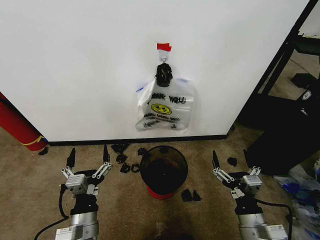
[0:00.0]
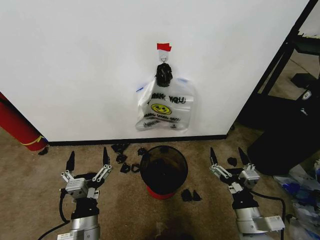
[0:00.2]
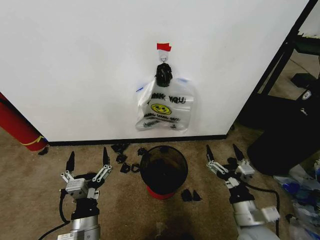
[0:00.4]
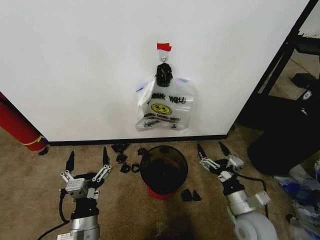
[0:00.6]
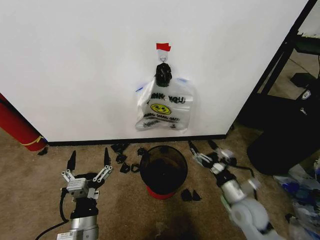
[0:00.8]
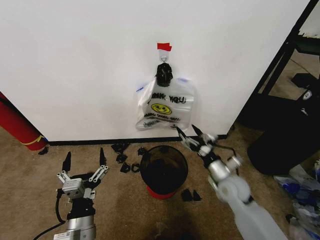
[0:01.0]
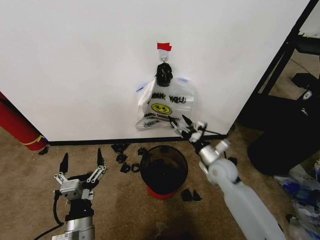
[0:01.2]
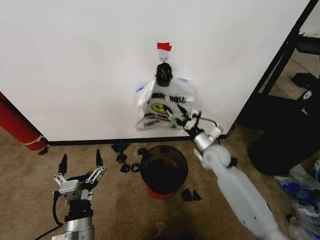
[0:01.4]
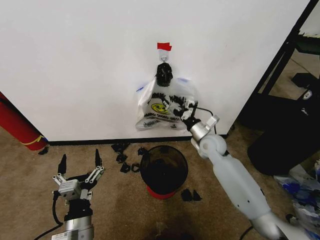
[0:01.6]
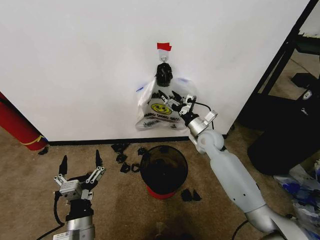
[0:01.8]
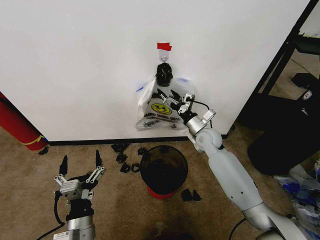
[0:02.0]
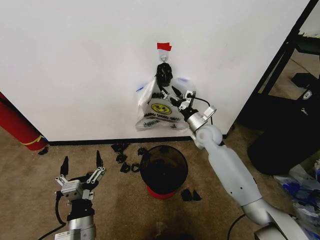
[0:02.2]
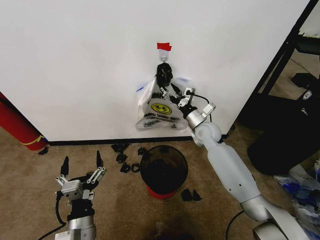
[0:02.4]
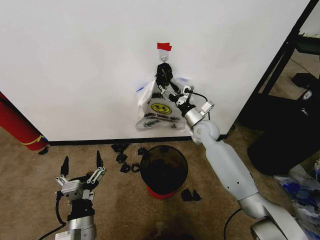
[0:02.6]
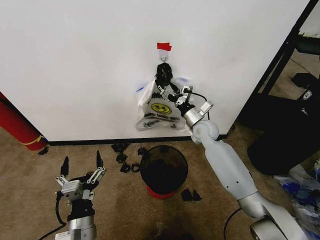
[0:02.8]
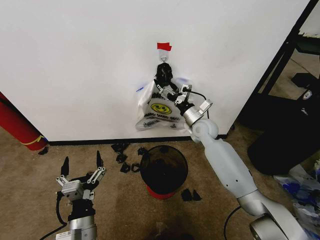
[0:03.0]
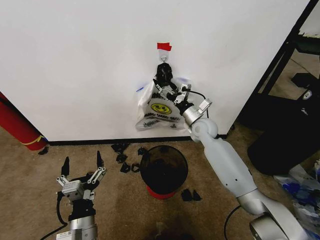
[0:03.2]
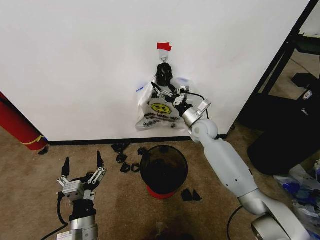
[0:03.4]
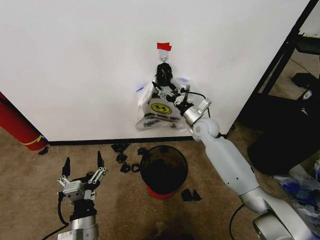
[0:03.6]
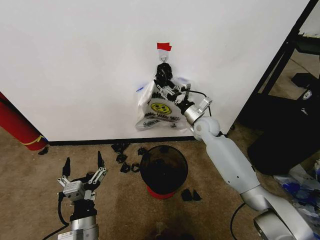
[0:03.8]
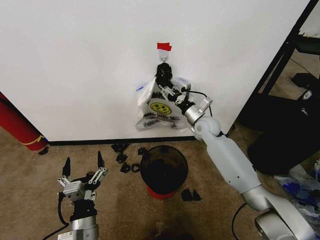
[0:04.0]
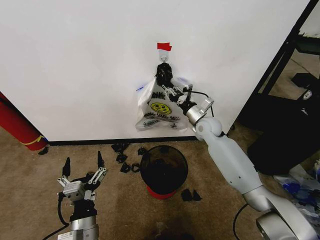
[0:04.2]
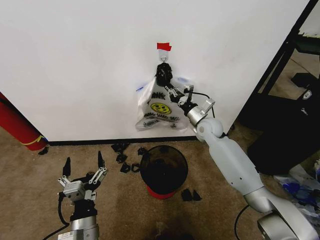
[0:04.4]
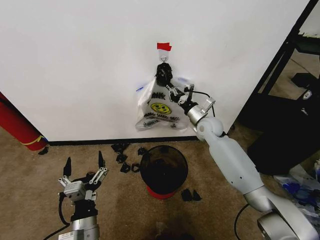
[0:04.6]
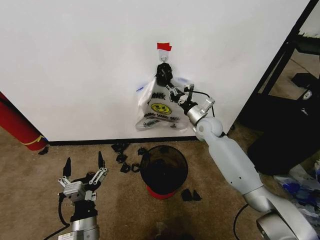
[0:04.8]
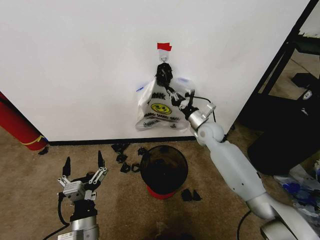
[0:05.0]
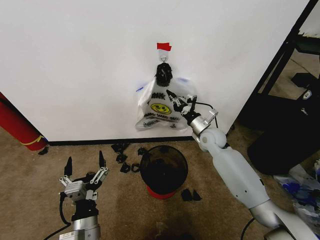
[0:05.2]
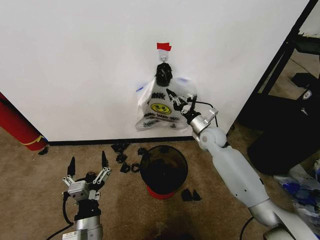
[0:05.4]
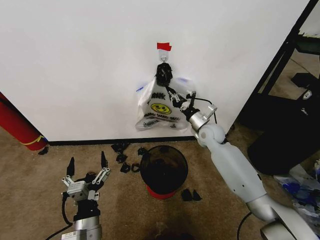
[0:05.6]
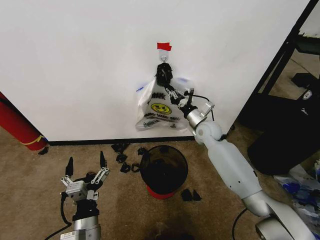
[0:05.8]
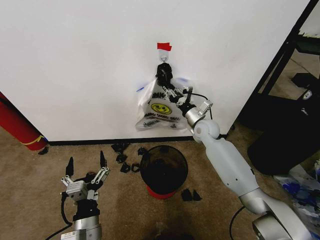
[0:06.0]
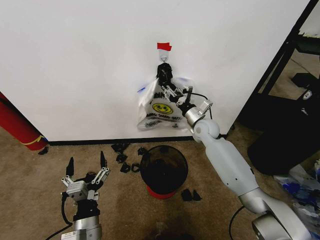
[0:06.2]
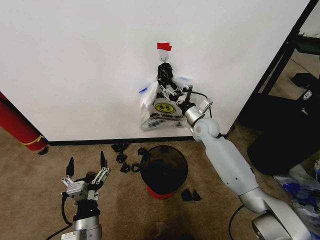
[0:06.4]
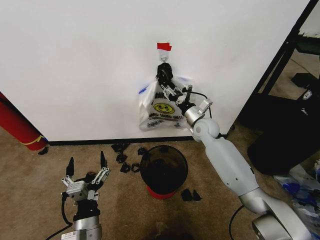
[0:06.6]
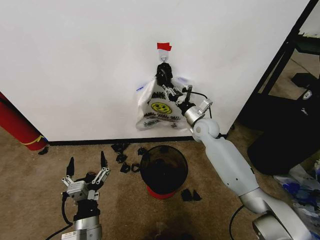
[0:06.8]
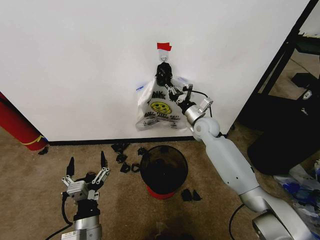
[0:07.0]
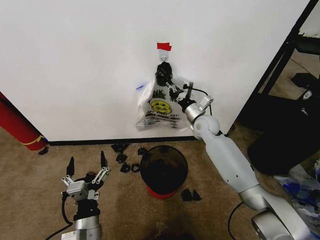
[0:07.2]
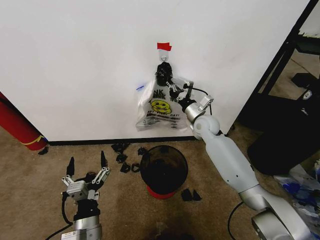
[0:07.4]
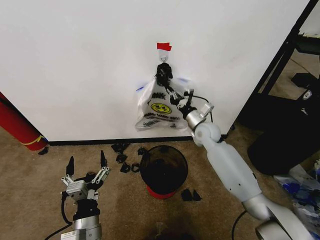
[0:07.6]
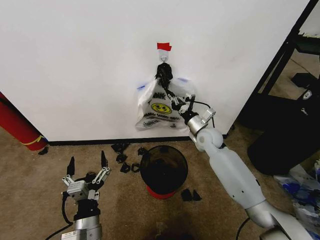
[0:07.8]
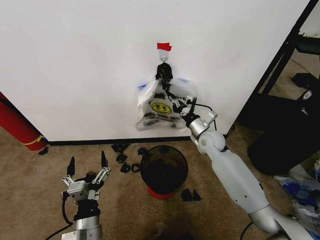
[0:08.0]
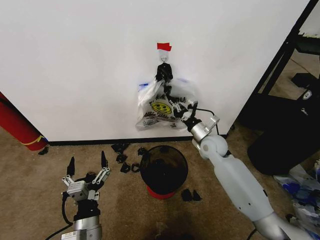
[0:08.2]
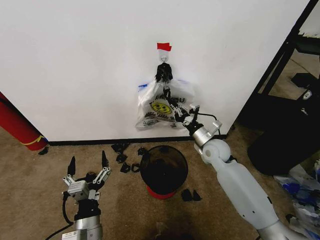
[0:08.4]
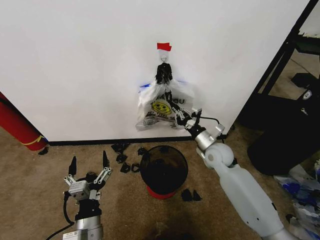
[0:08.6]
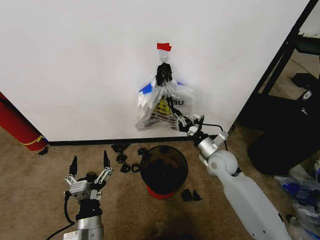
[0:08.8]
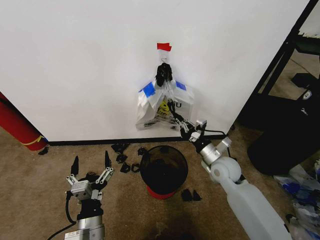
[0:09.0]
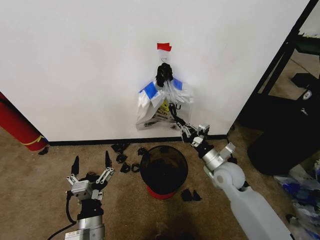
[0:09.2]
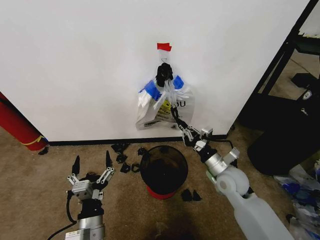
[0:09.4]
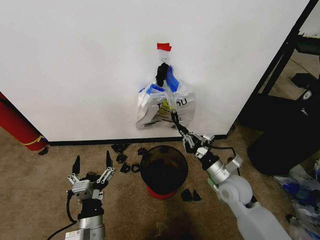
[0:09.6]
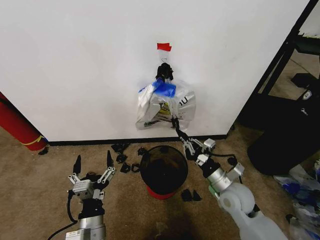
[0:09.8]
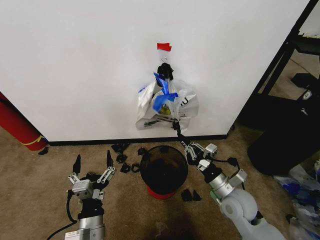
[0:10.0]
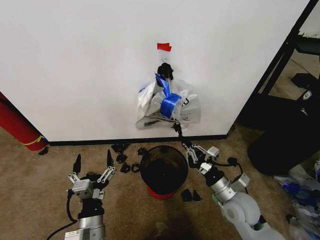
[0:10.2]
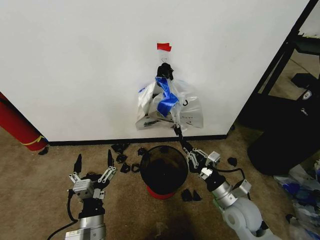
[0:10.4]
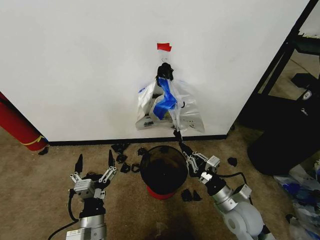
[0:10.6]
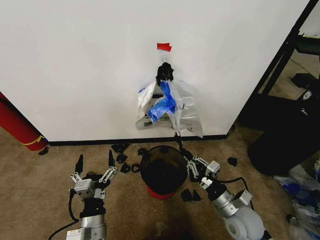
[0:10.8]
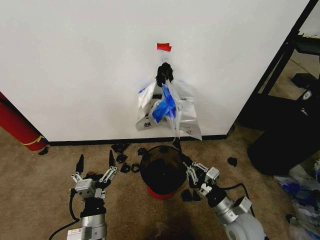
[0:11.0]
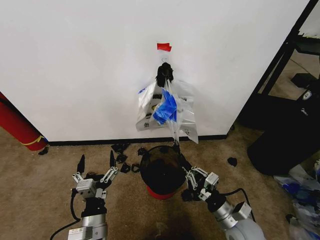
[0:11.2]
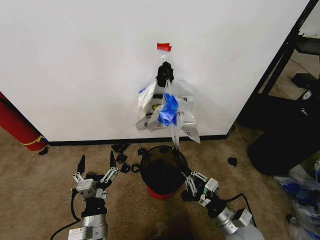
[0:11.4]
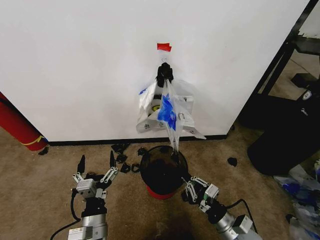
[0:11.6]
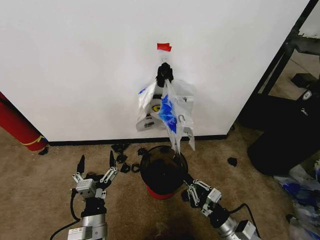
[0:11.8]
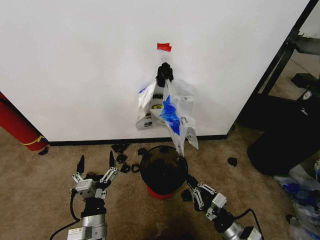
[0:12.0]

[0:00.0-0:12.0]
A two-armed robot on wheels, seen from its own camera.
Task of the whole recording: Pick up the garbage bag from the wall and place it over the trash bin.
0:01.6 to 0:03.0: The right gripper ends up some 5 cm from where it was.
0:03.0 to 0:04.4: The right gripper closes up.
0:04.4 to 0:06.0: The grippers make only small movements.
0:06.0 to 0:07.6: The right gripper opens, then closes again.
0:07.6 to 0:09.0: The right gripper goes approximately 15 cm backward and downward.
0:09.0 to 0:10.4: The right gripper moves backward, some 15 cm.
0:10.4 to 0:12.0: The right gripper is displaced backward and downward by about 10 cm.

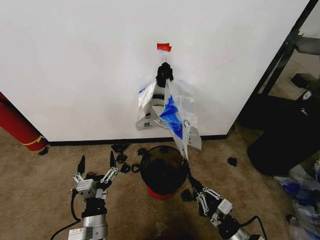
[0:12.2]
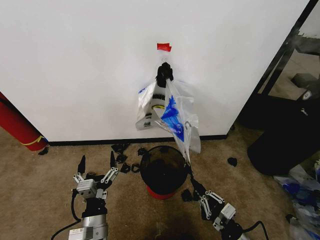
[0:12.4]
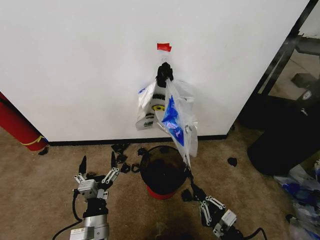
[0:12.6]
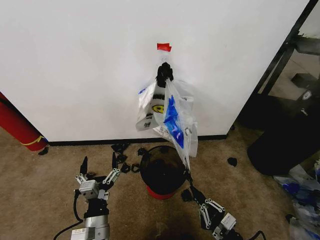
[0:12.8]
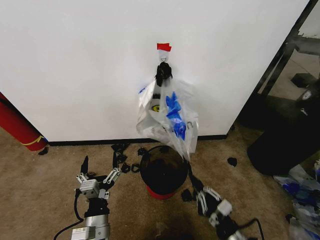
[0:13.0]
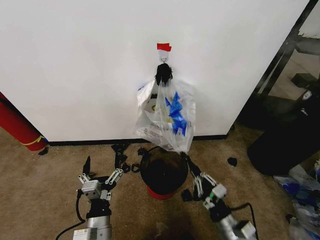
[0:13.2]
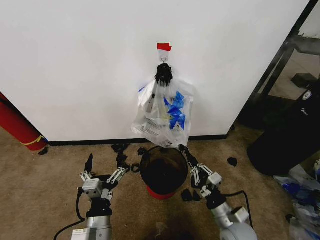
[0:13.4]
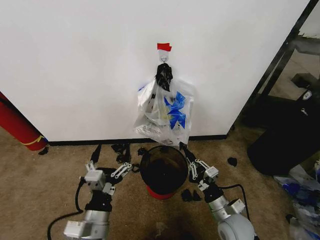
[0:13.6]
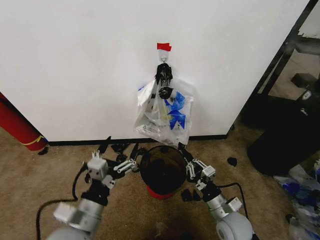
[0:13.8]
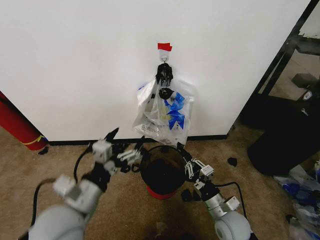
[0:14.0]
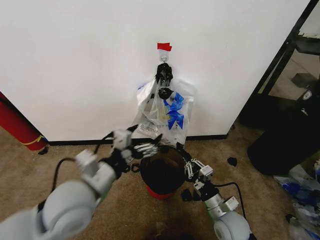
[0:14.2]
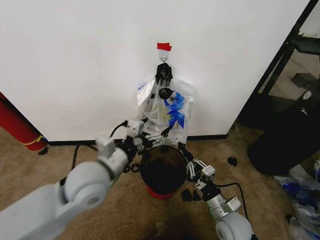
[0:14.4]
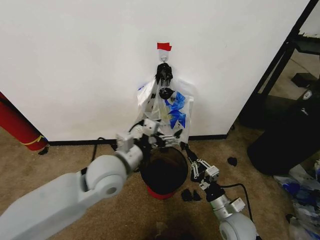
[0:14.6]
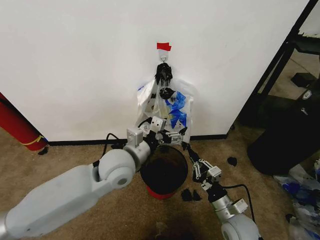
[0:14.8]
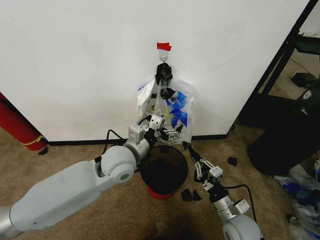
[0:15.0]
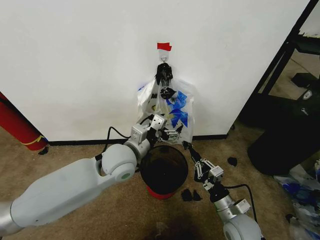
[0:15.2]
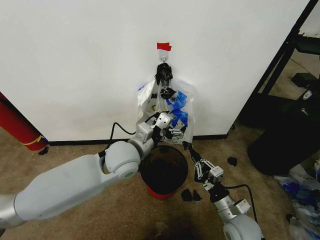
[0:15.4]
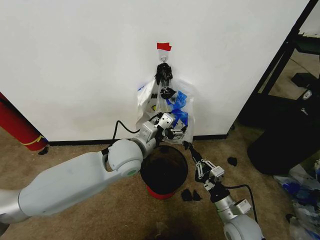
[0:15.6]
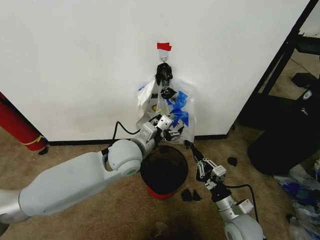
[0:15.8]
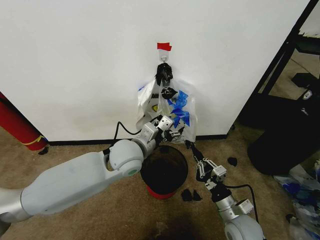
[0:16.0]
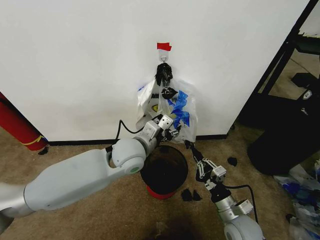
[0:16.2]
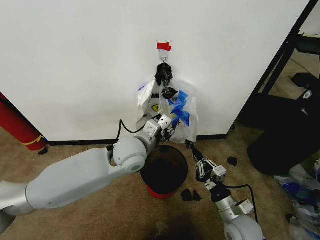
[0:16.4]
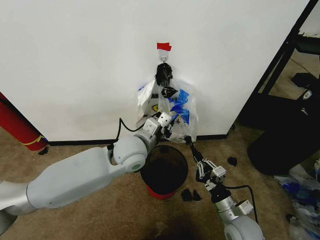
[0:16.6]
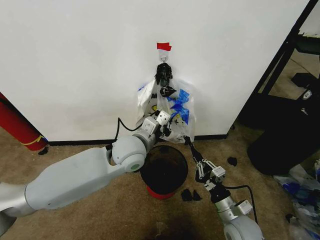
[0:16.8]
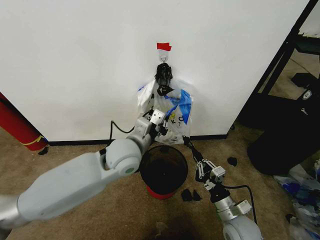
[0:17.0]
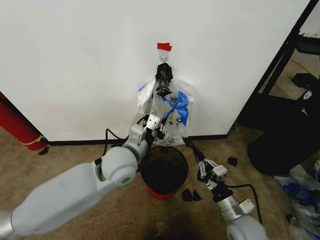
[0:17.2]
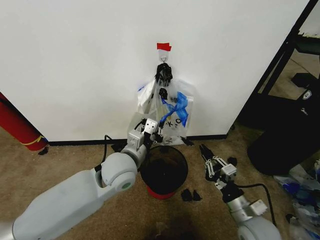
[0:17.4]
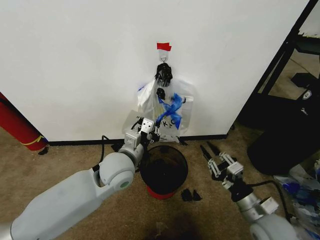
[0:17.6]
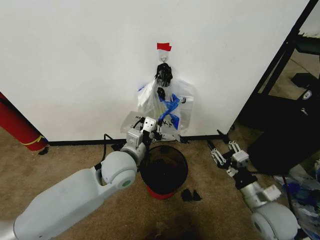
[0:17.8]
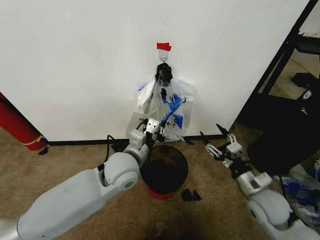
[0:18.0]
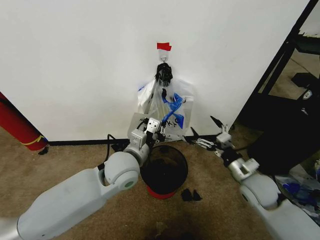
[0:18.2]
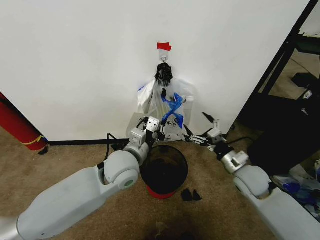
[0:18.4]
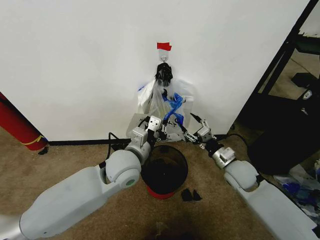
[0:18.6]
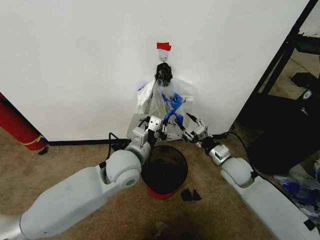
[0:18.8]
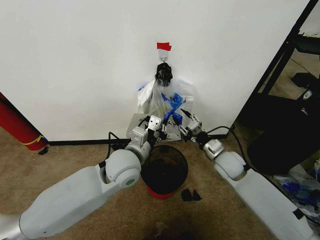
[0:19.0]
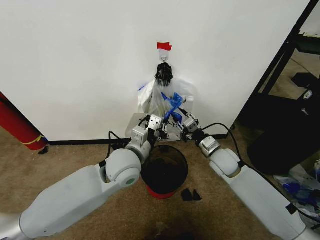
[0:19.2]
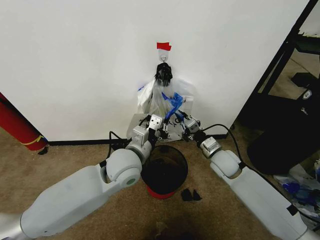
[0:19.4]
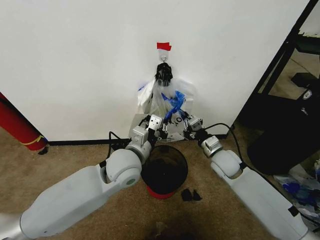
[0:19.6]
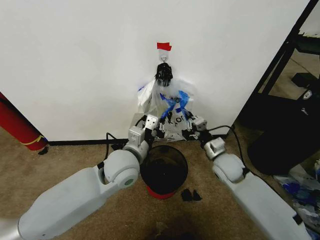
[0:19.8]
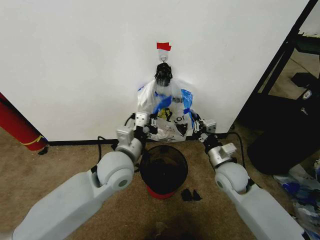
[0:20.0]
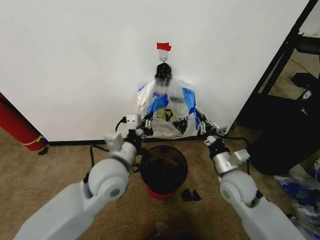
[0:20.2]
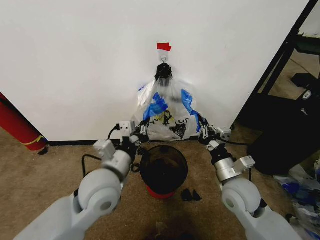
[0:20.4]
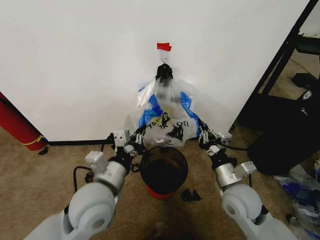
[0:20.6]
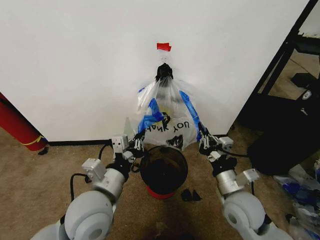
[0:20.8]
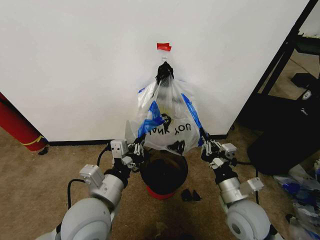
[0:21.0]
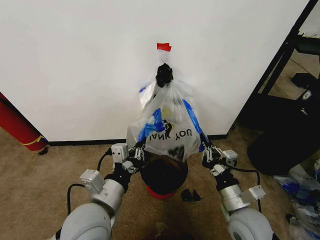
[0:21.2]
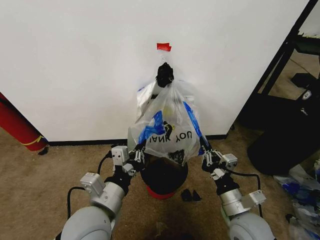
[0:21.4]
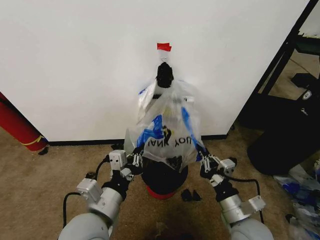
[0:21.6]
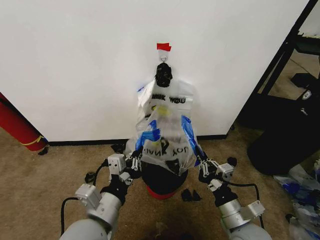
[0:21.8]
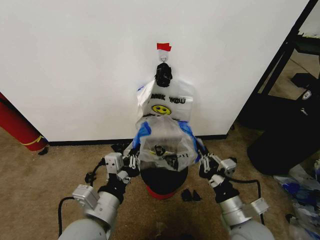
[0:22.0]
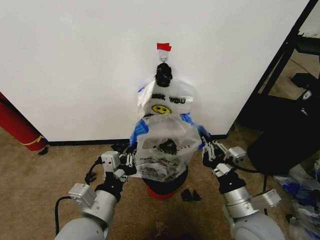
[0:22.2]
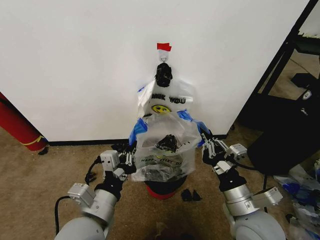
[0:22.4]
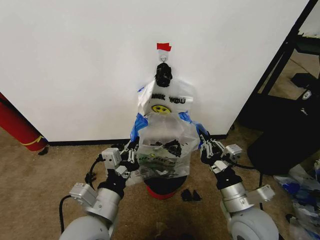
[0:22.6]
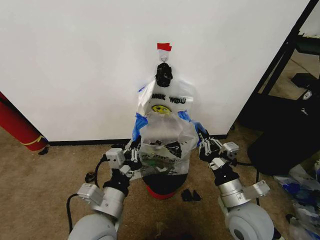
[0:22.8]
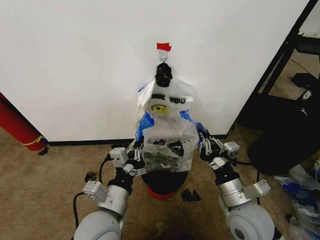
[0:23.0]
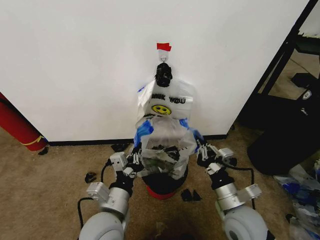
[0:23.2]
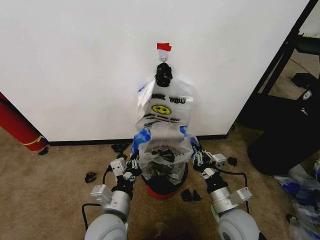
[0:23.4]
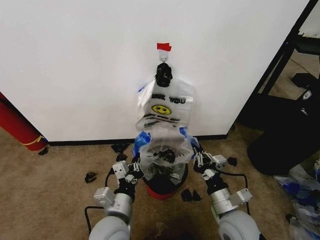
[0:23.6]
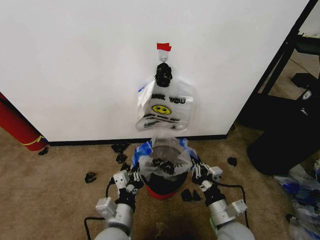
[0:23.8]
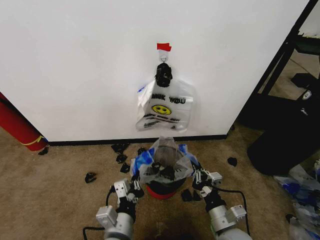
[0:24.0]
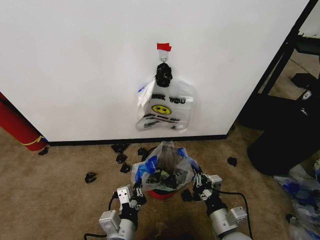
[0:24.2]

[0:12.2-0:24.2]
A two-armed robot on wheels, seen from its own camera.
Task of the whole recording: Pick up the garbage bag from the wall and place it over the trash bin.
0:12.2 to 0:13.8: The right gripper moves forward, approximately 10 cm, while the left gripper shifts some 5 cm upward.
0:13.8 to 0:15.2: The left gripper goes roughly 20 cm forward.
0:15.2 to 0:16.6: The left gripper closes.
0:16.6 to 0:18.2: The right gripper goes roughly 15 cm forward, upward and to the right, and opens up; the left gripper ends up roughly 5 cm from where it was.
0:18.2 to 0:19.8: The right gripper travels forward and to the left by about 10 cm, and closes.
0:19.8 to 0:21.2: The two grippers go about 15 cm backward.
0:21.2 to 0:22.6: The grippers stay close to where they were, moving slightly.
0:22.6 to 0:24.2: Both grippers move downward, about 10 cm.
